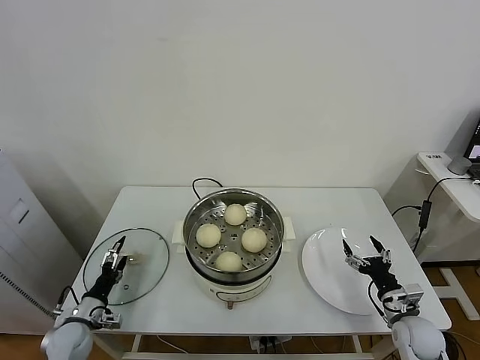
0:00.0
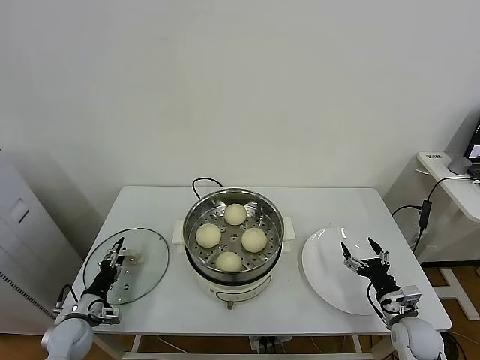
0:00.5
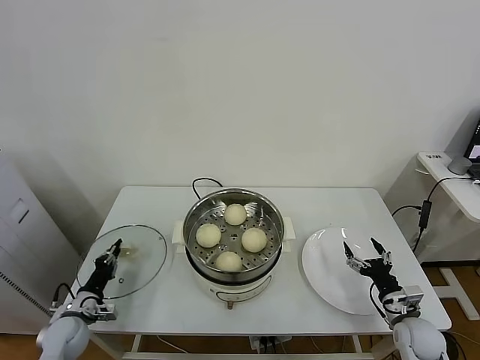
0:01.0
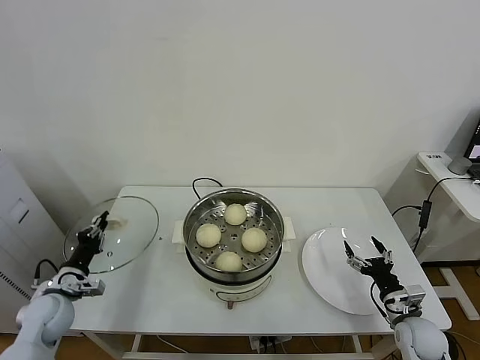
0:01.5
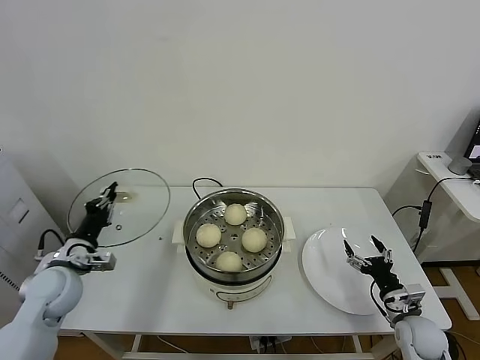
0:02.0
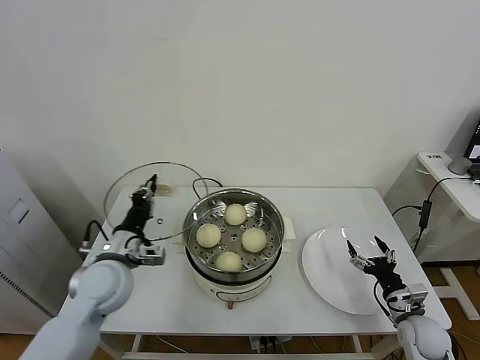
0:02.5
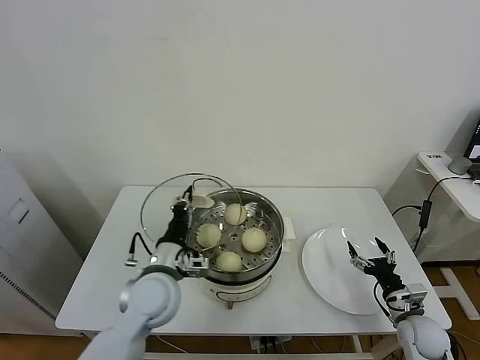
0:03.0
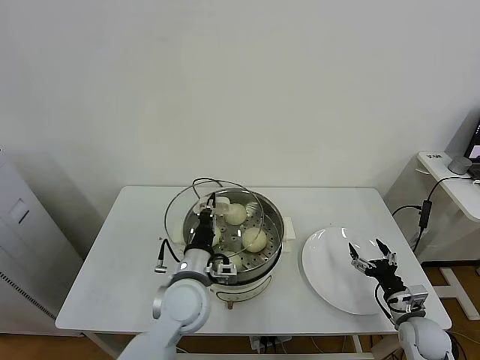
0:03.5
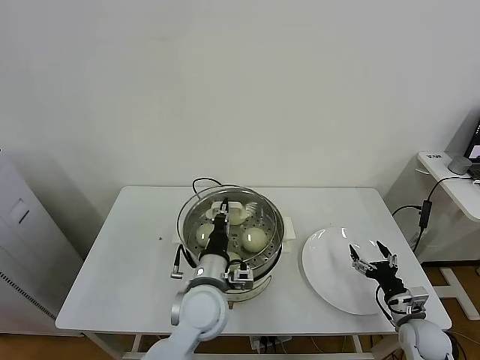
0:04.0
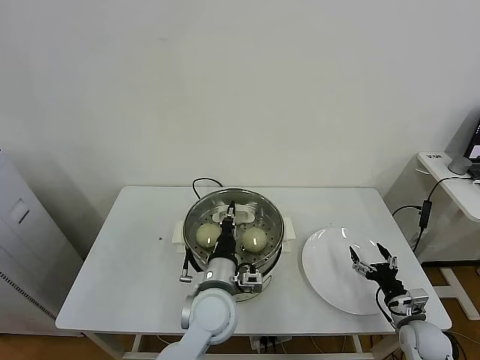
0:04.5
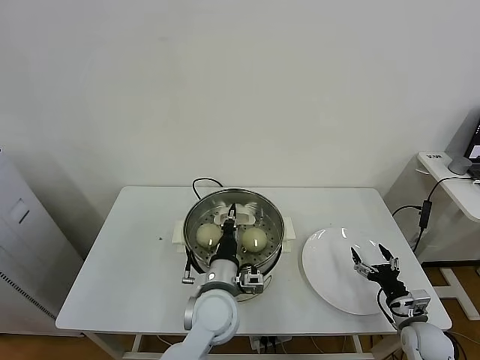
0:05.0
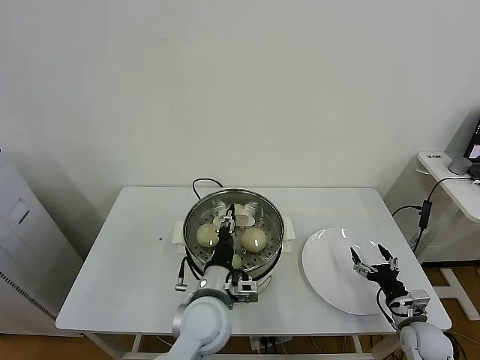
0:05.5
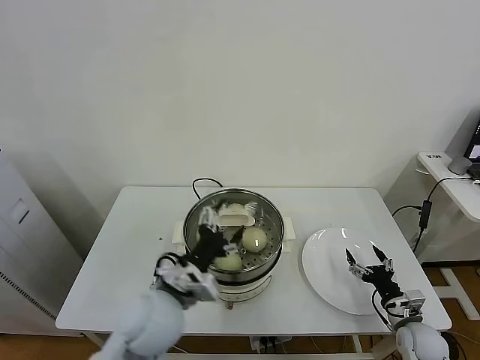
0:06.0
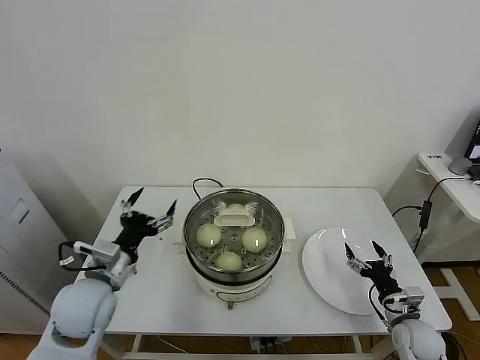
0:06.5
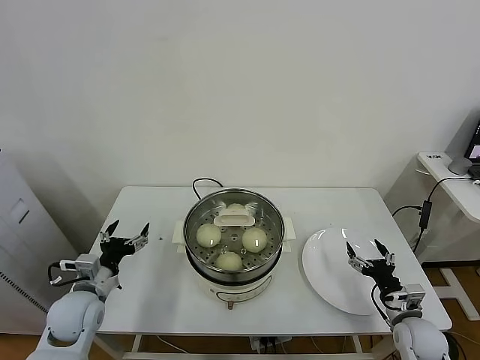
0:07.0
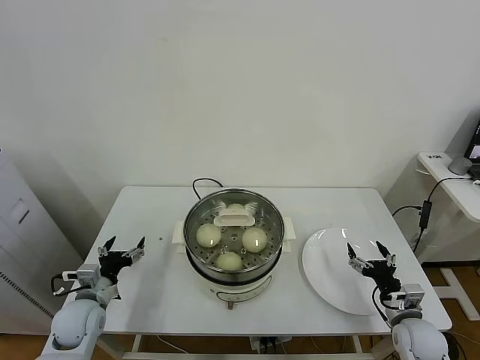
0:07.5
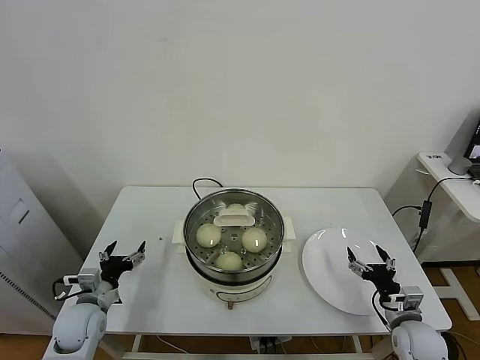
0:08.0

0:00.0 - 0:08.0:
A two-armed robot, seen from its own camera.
Task of the whole recording: take steamed baozi put them in steamer.
Step, 0:01.5 - 0:05.5: Place the pot lid on the steamer with left gripper.
0:00.0 - 0:02.0: The left gripper shifts approximately 20 cm upward, and closes.
0:02.0 - 0:04.0: The left gripper travels to the right by roughly 30 cm.
0:04.0 - 0:06.0: The left gripper moves to the left, about 5 cm, and opens its fingers.
0:06.0 - 0:08.0: The left gripper moves to the left and downward, approximately 25 cm.

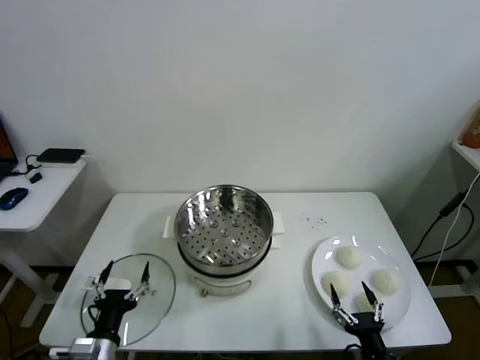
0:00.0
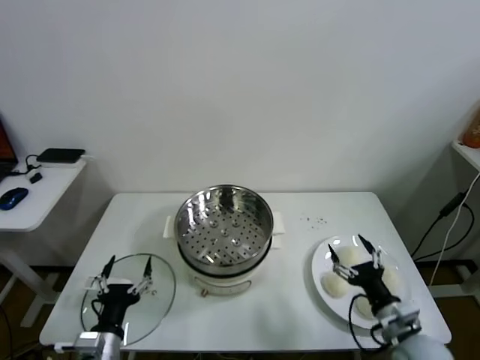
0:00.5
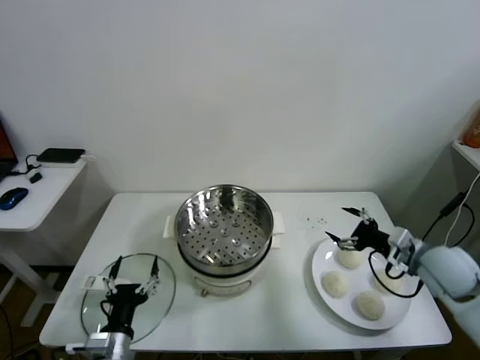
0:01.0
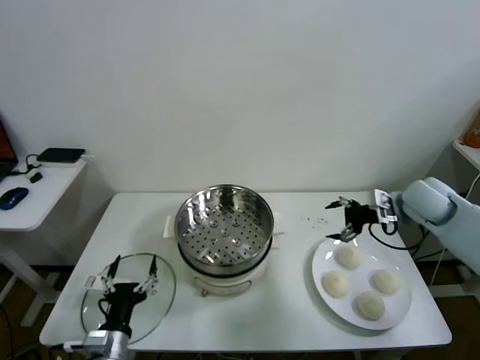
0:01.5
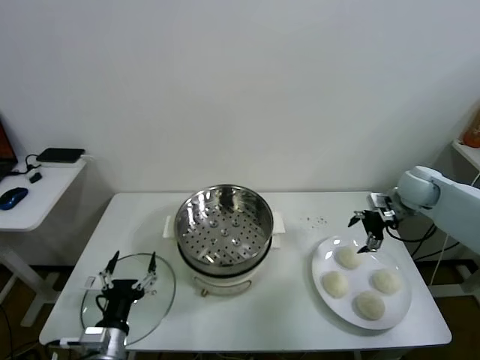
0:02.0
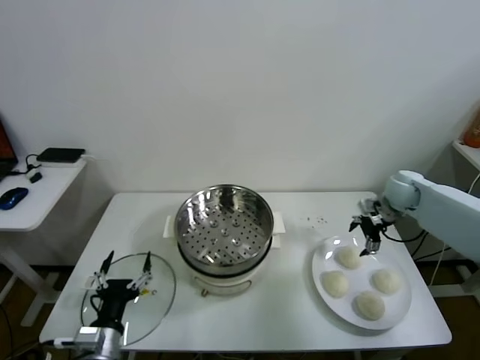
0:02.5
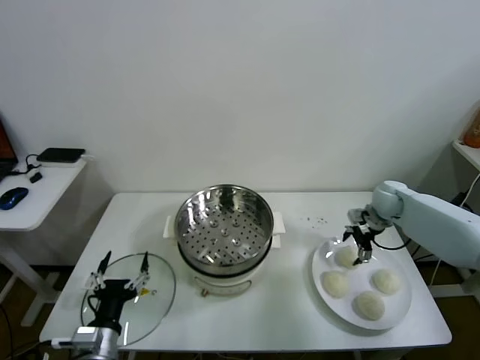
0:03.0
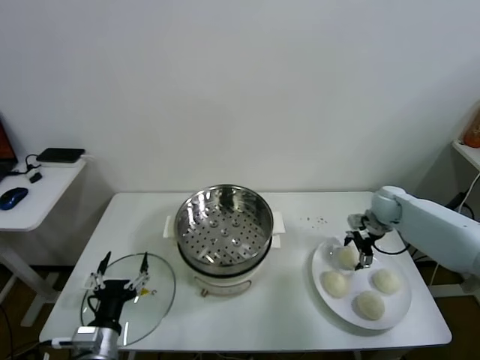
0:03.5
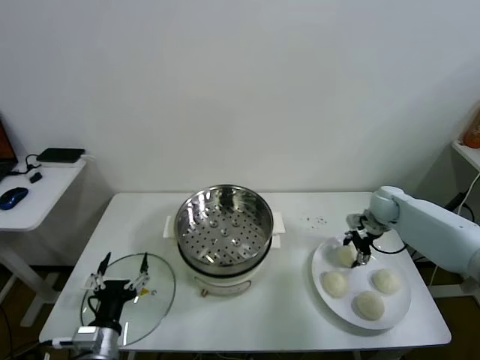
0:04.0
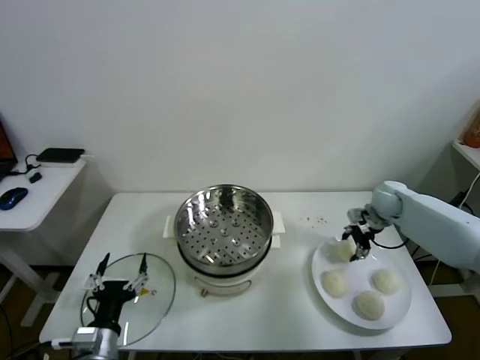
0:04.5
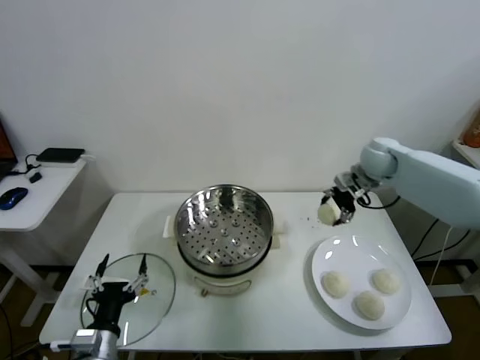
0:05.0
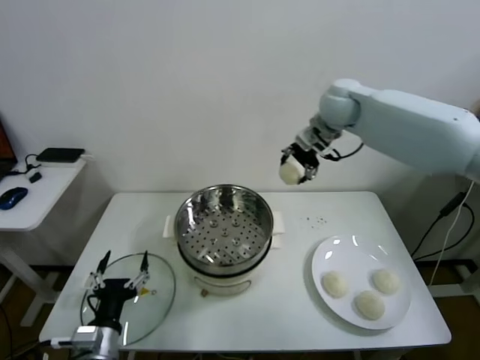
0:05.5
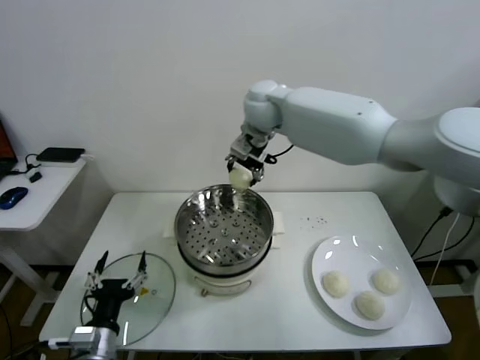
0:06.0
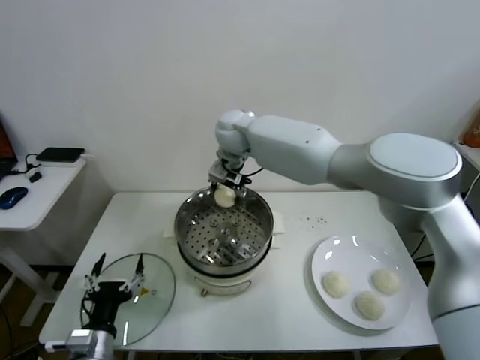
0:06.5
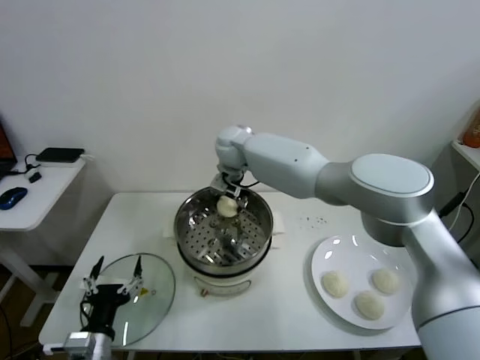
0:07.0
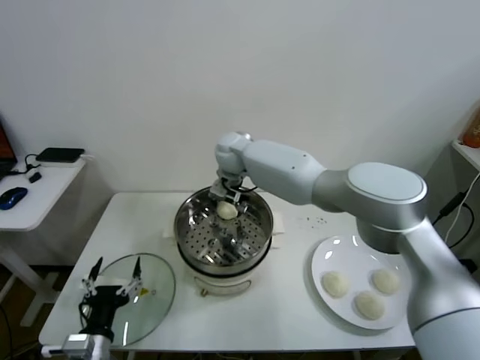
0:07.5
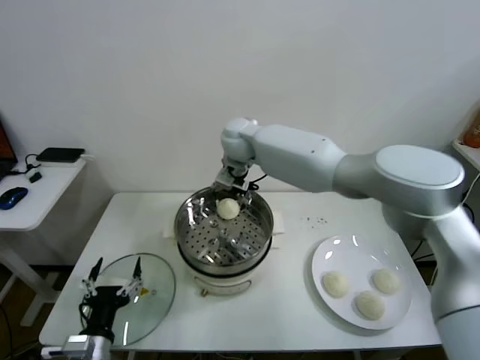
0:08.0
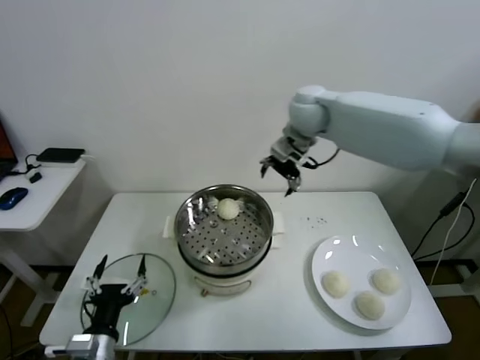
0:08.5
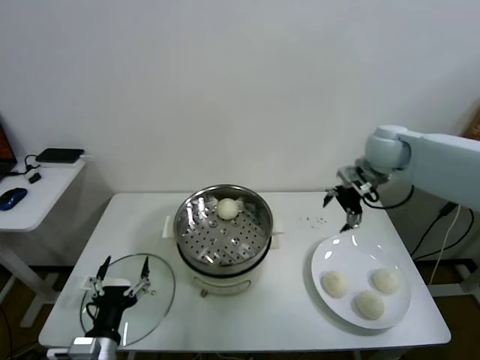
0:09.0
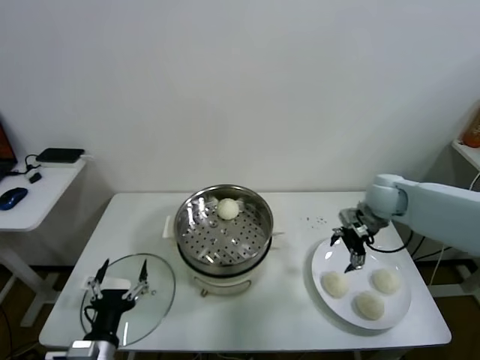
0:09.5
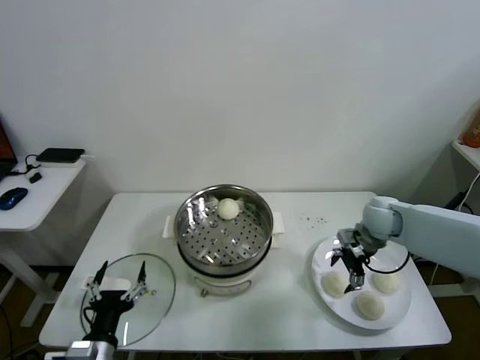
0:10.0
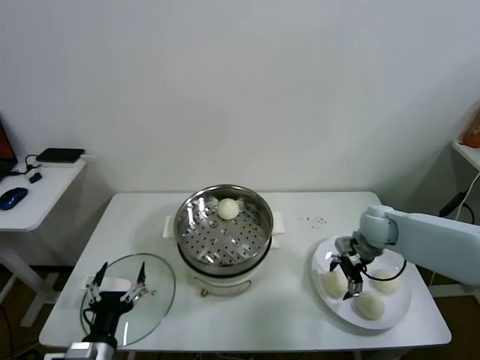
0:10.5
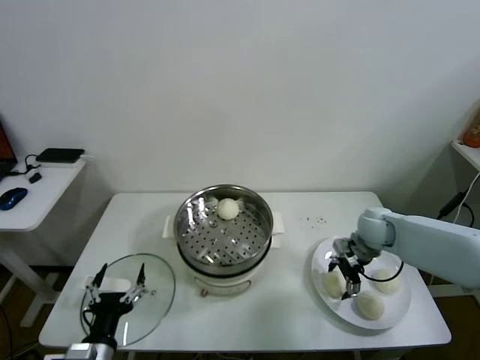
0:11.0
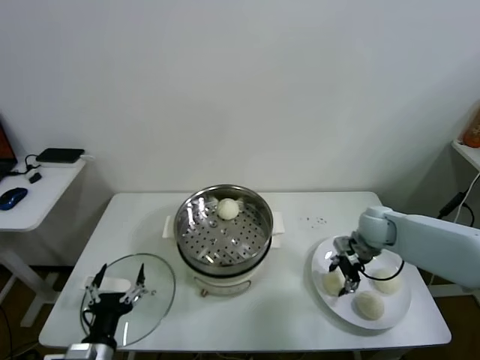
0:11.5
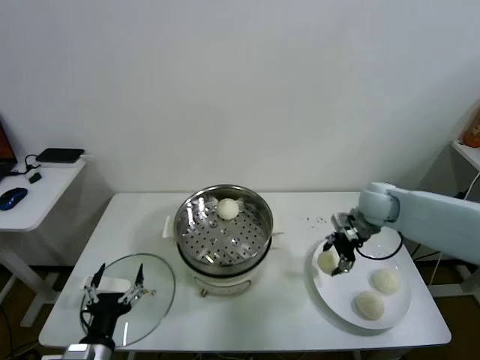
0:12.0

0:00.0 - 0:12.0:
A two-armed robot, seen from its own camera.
Task of the whole recording: take steamed baozi put them in steamer.
Step, 0:00.0 - 0:04.0: Grasp the baozi in the plate with right gripper.
Step, 0:04.5 - 0:07.5: Place the baozi on the steamer with right gripper.
Step, 0:08.0 - 0:11.5: Grasp the baozi in the plate with right gripper.
0:02.0 - 0:04.0: The right gripper goes some 10 cm downward, and closes its fingers.
0:04.0 - 0:06.0: The right gripper moves to the left and upward, approximately 50 cm.
0:06.0 - 0:08.0: The right gripper travels downward by about 5 cm, and opens.
0:08.0 - 0:10.0: The right gripper heads to the right and downward, covering about 40 cm.
0:10.0 - 0:12.0: The right gripper travels upward by roughly 5 cm, and closes up.

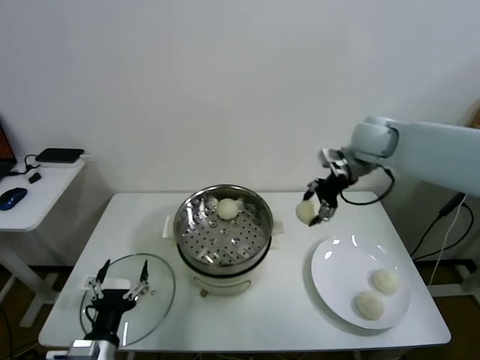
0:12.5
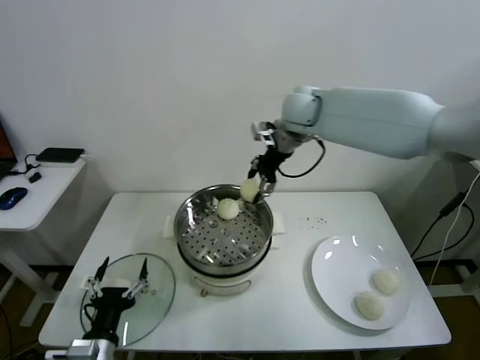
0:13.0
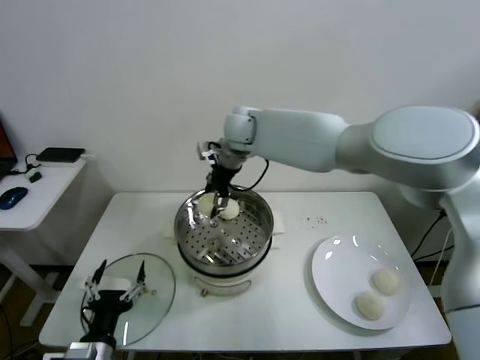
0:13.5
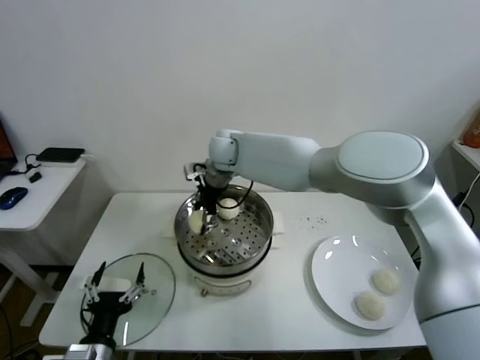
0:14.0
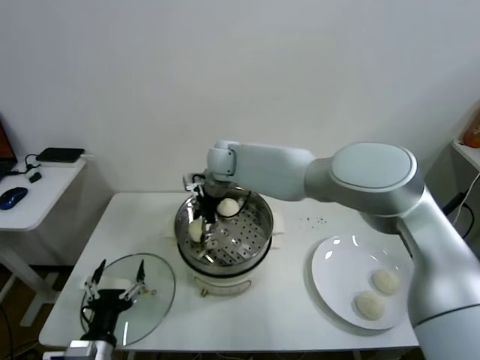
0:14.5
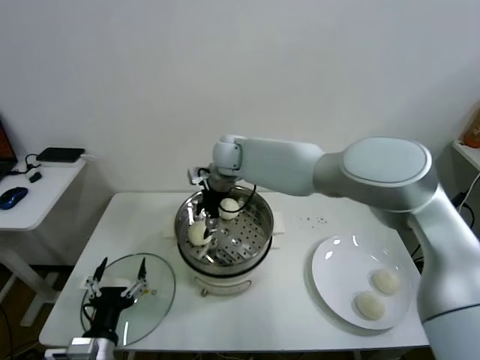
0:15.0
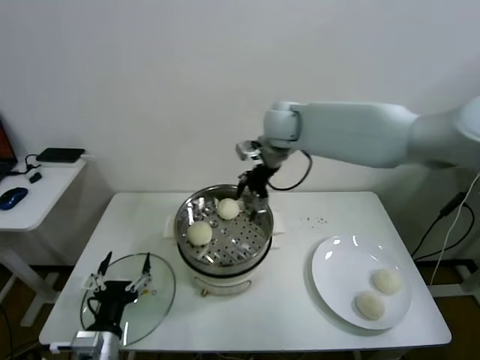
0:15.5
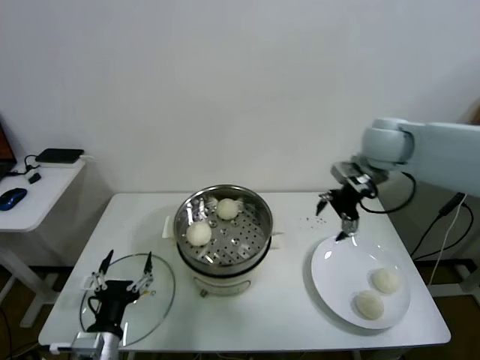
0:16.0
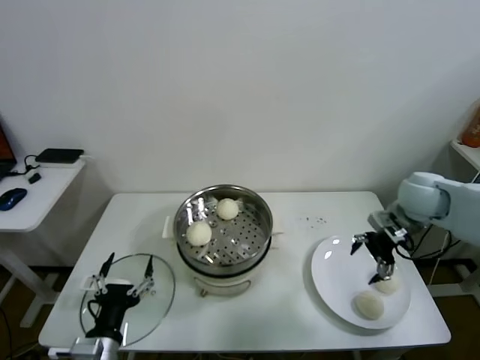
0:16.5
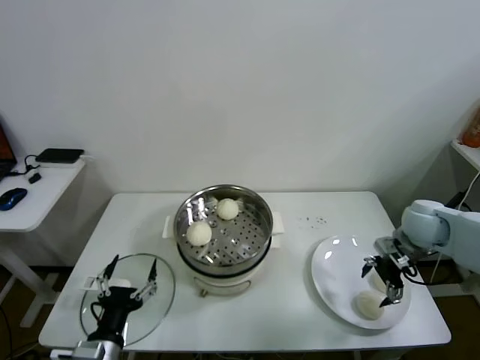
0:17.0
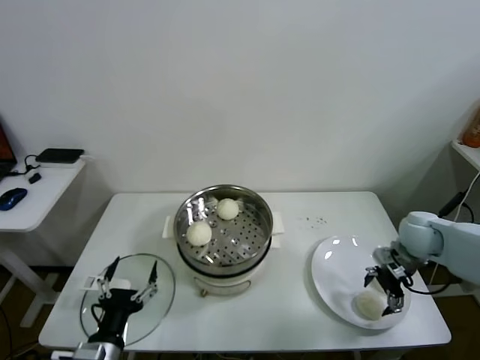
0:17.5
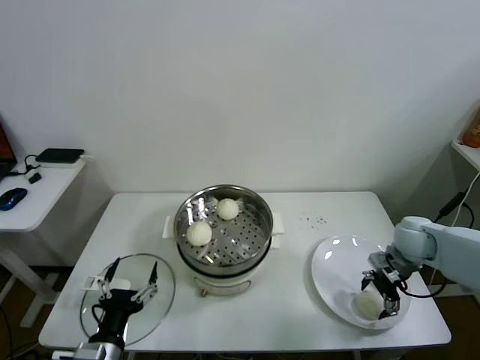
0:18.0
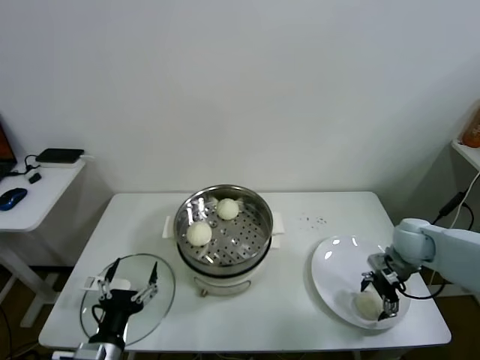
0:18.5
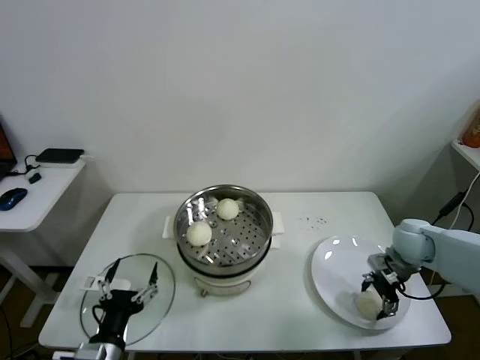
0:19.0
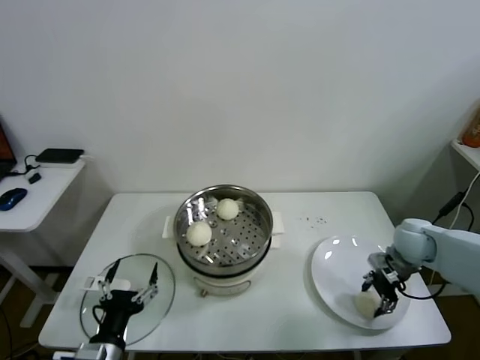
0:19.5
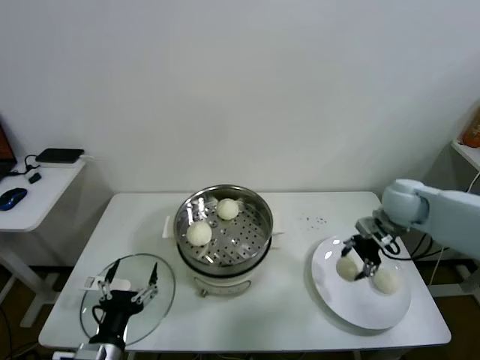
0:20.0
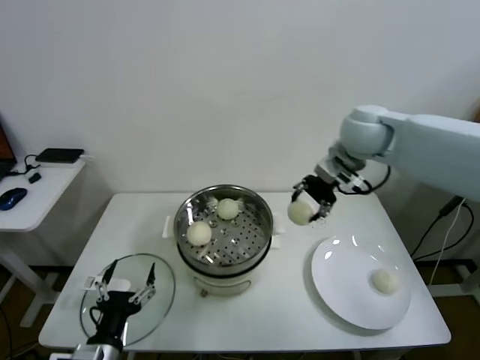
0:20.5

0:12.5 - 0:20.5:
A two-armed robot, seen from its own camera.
Task of the whole recording: take steamed baozi put them in steamer.
Step, 0:12.5 - 0:14.5: Place the baozi on the steamer with right gripper.
Step, 0:15.0 - 0:19.0: Grasp the baozi in the plate with right gripper.
0:12.5 - 0:14.5: The right gripper heads to the left, covering about 30 cm, and opens its fingers.
0:14.5 - 0:16.5: The right gripper heads to the right, covering some 40 cm.
0:16.5 - 0:18.5: The right gripper shifts roughly 10 cm downward.
0:18.5 - 0:20.5: The right gripper travels upward and to the left by roughly 30 cm, and closes.
